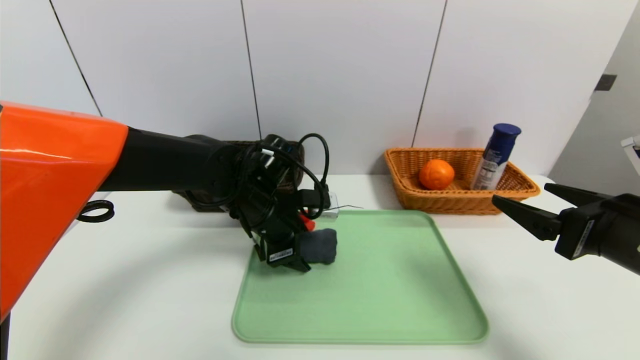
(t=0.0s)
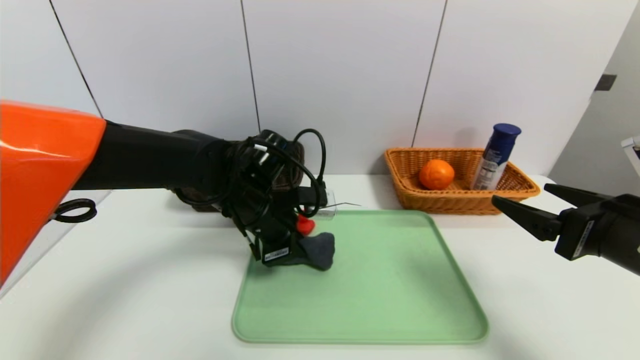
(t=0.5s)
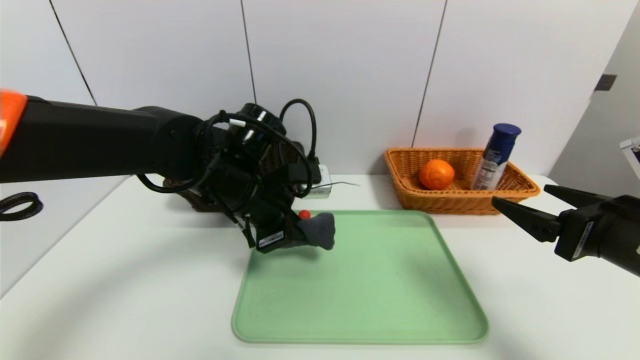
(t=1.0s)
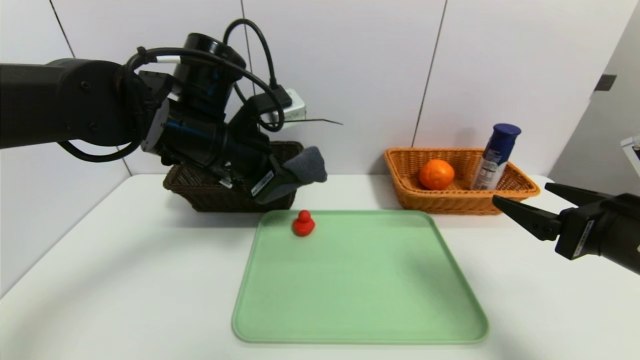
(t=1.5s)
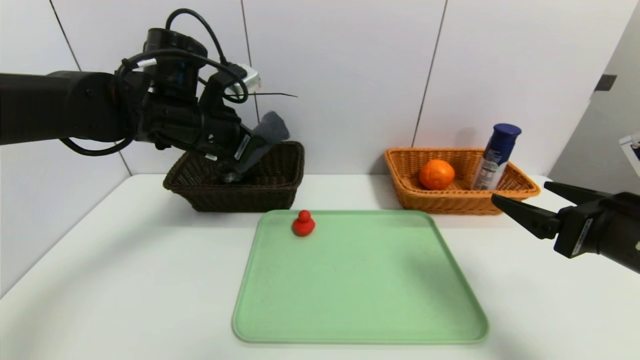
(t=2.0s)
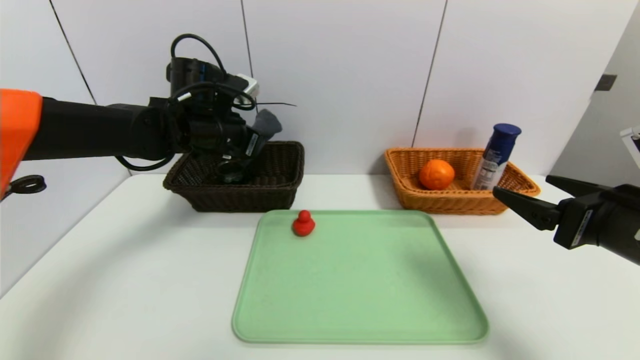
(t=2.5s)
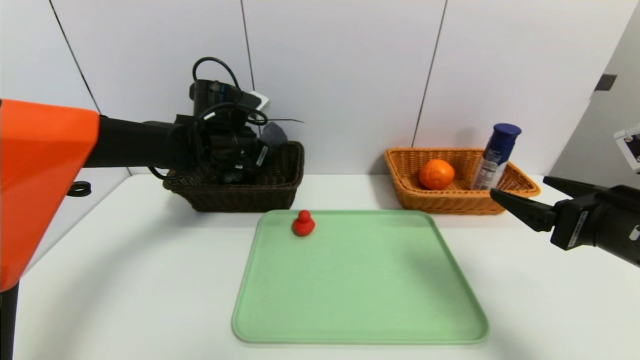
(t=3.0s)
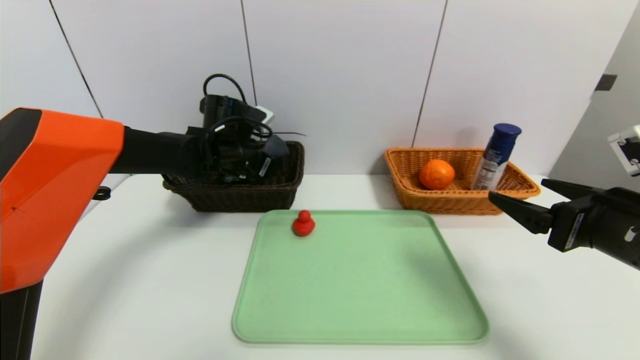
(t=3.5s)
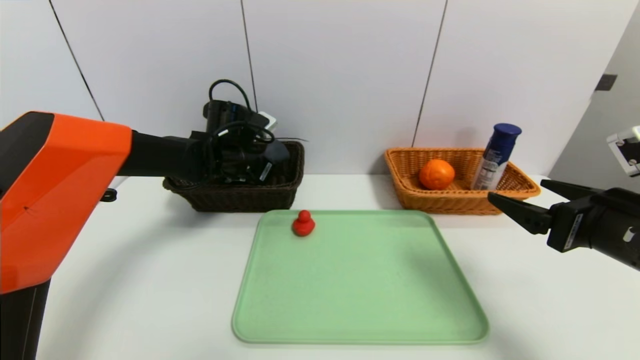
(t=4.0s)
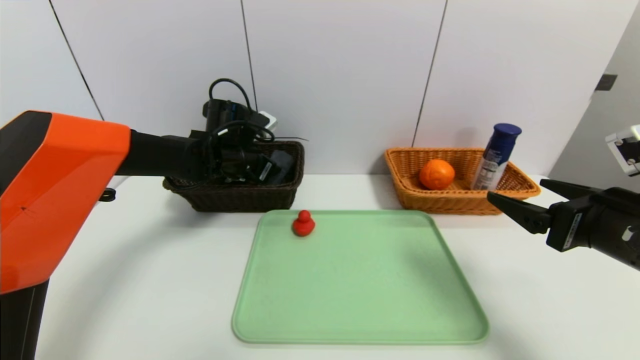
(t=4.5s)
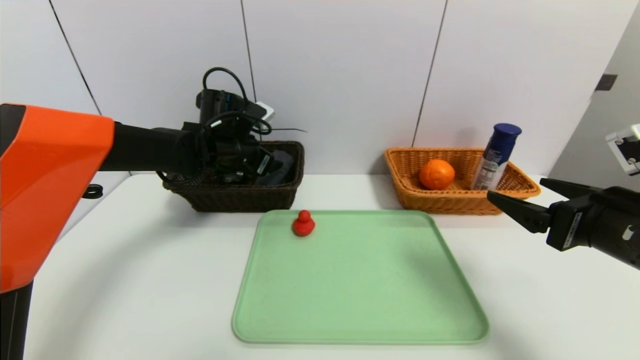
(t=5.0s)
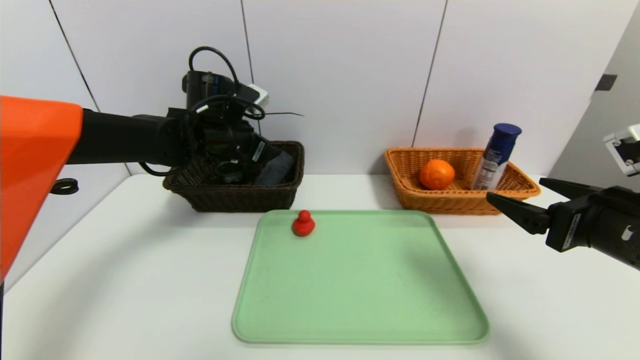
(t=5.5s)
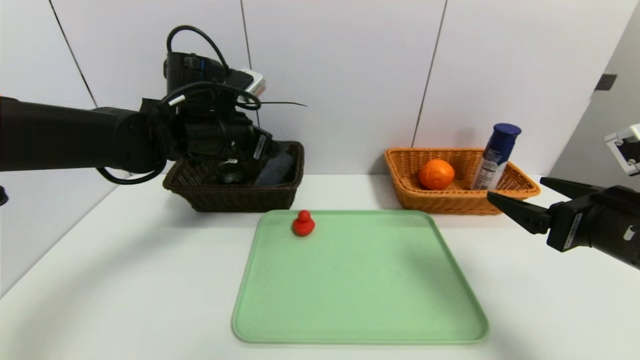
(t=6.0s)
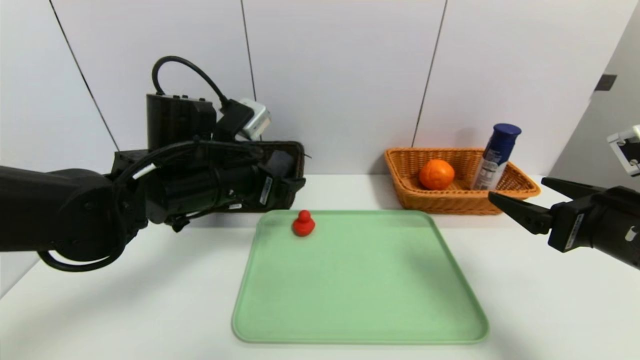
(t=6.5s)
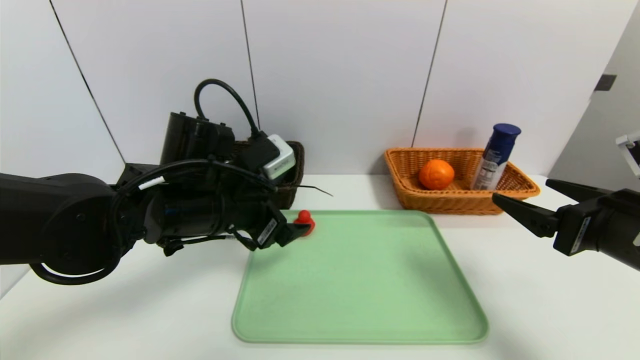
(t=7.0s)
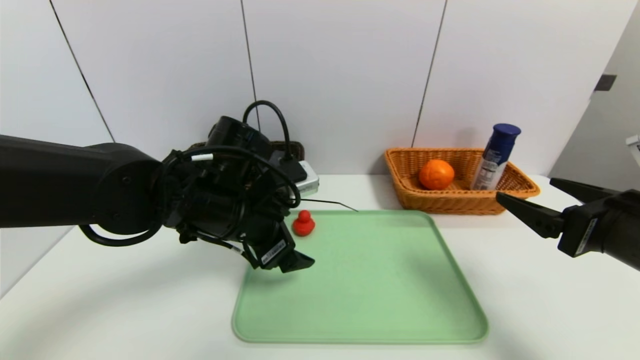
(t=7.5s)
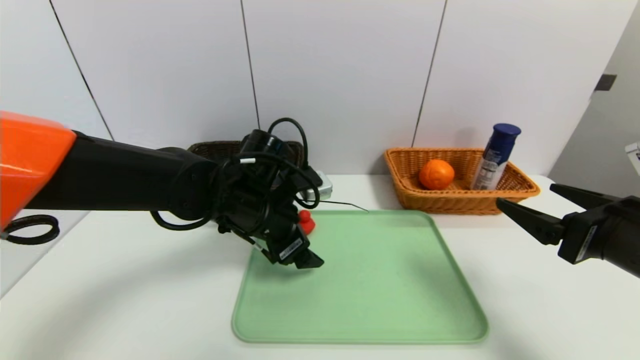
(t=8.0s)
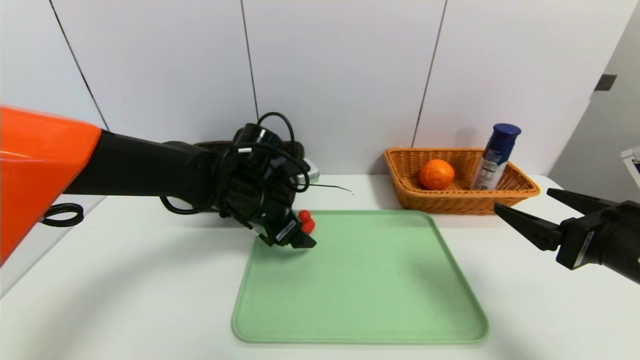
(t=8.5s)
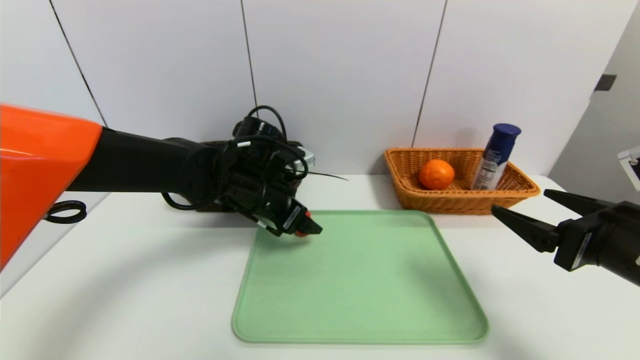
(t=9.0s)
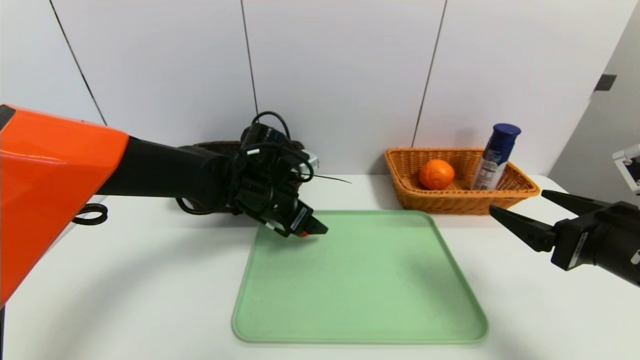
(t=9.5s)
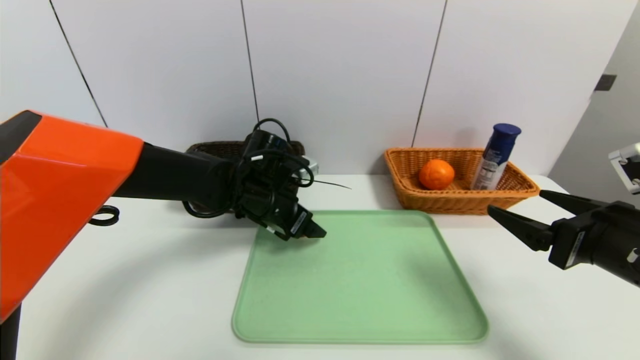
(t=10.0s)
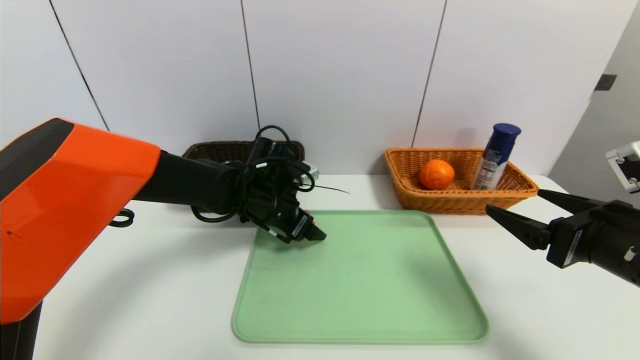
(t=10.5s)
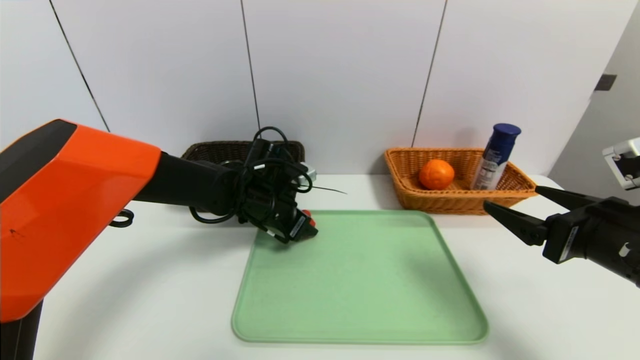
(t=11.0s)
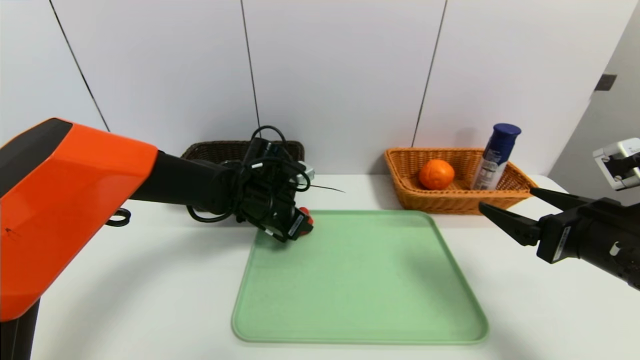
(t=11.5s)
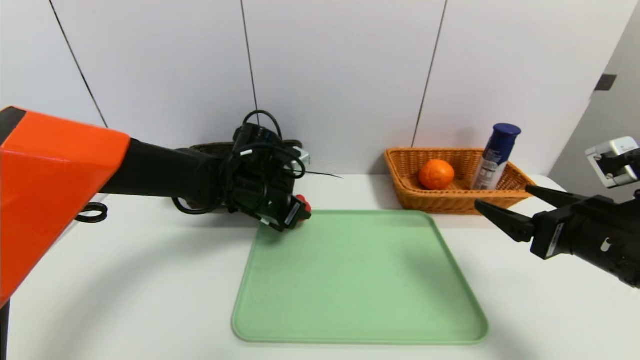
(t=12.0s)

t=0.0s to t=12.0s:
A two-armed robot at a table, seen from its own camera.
Task of the whole recording: place the food in the right basket with the right gripper, and place the non food items in the left basket with the left gripper.
Step, t=0.0s to t=5.0s: Grasp the grey towel and put it in the left basket.
t=0.0s to t=2.0s: The left gripper goes some 15 cm upward and to the left, and closes.
t=2.0s to t=4.0s: The left gripper moves downward and forward, approximately 15 cm.
t=4.0s to t=6.0s: The left gripper travels backward and upward by approximately 10 cm, and opens its fingers.
t=6.0s to t=8.0s: The left gripper travels downward, to the right and backward by some 10 cm.
t=8.0s to t=10.0s: The left gripper shifts roughly 5 cm forward.
t=10.0s to t=12.0s: The left gripper closes its fingers.

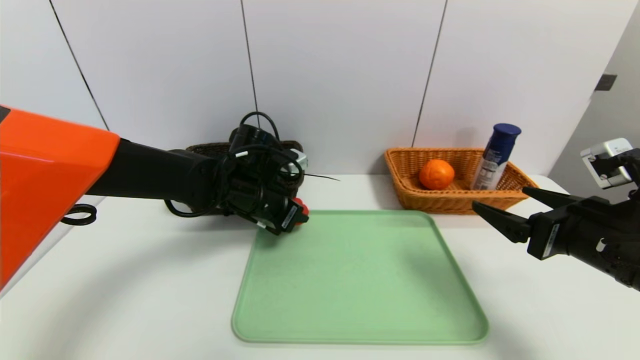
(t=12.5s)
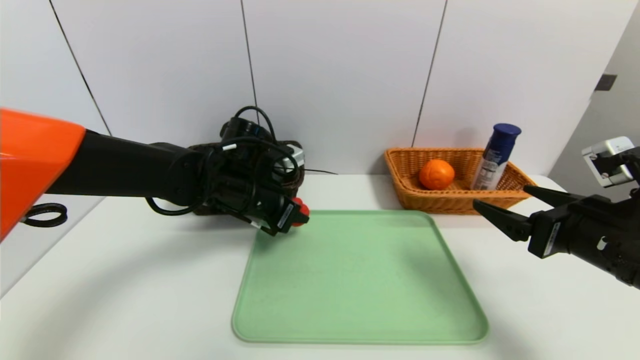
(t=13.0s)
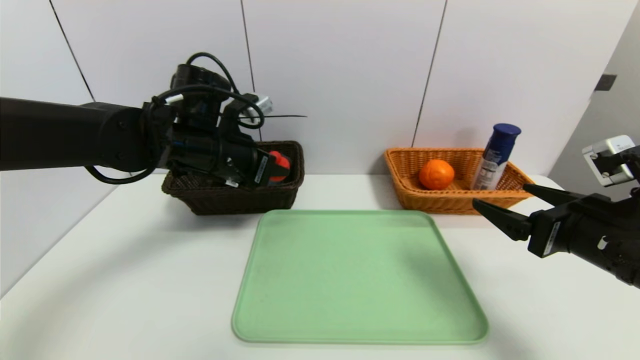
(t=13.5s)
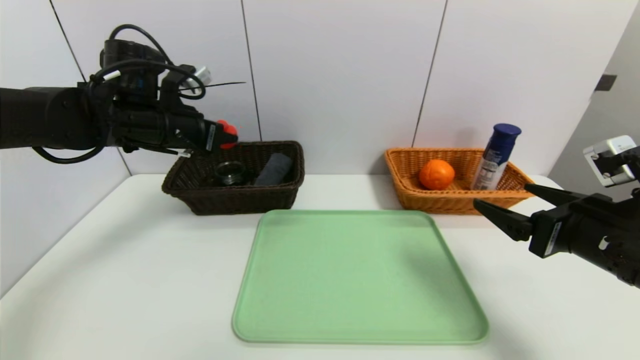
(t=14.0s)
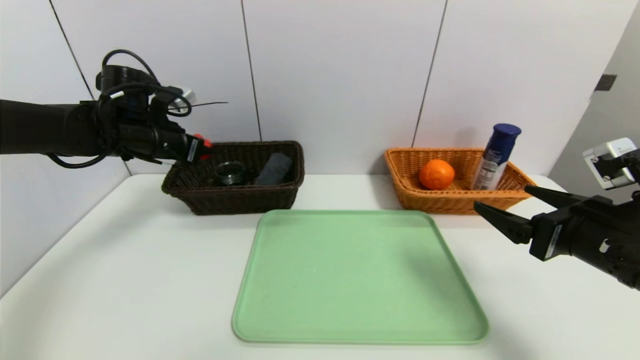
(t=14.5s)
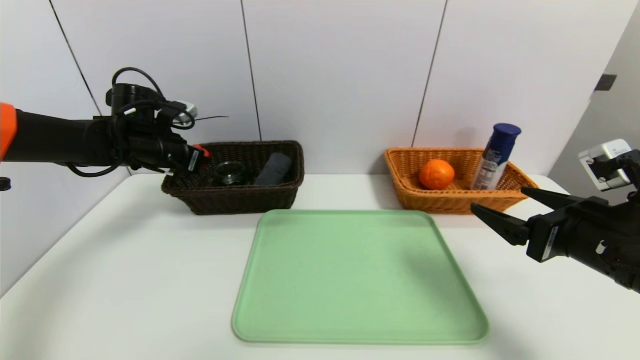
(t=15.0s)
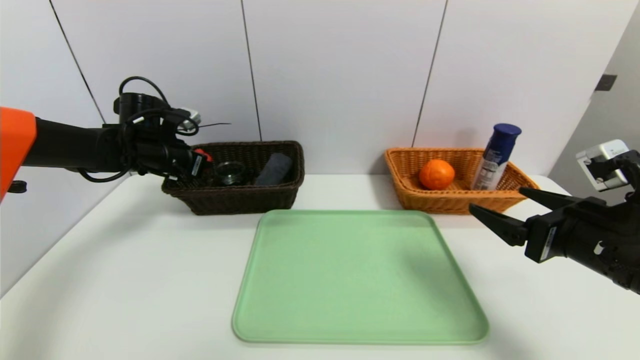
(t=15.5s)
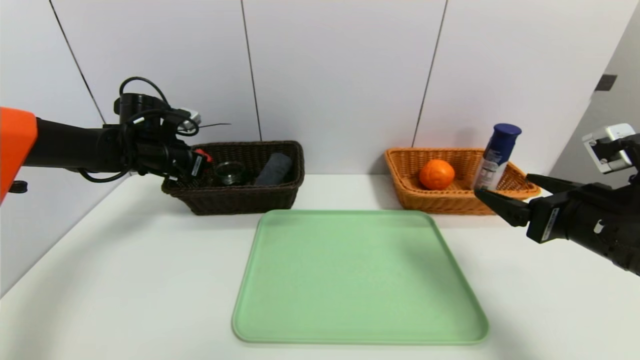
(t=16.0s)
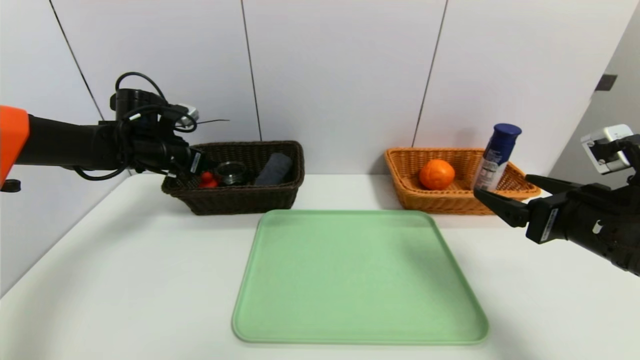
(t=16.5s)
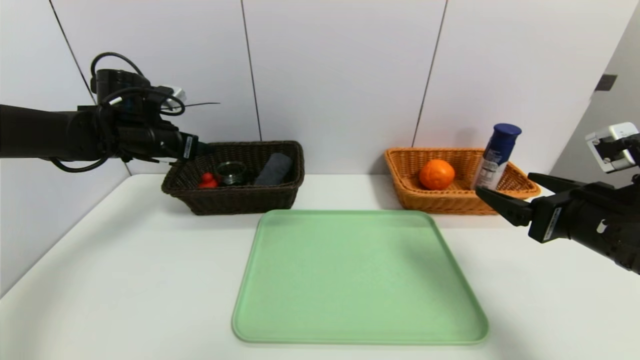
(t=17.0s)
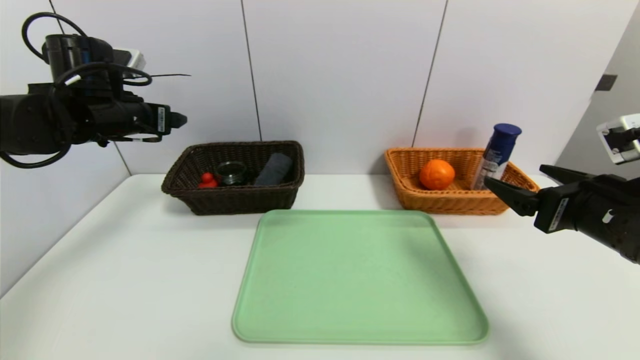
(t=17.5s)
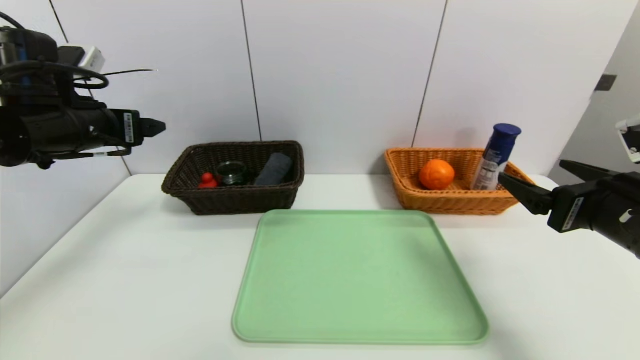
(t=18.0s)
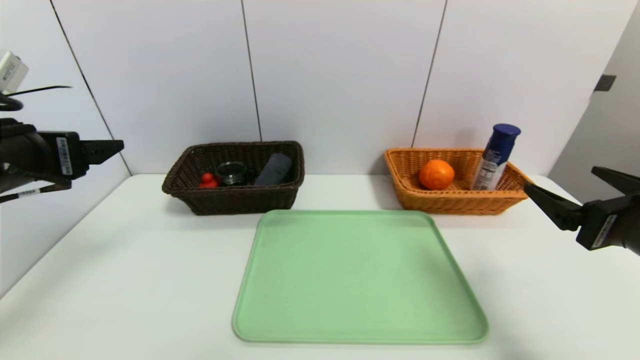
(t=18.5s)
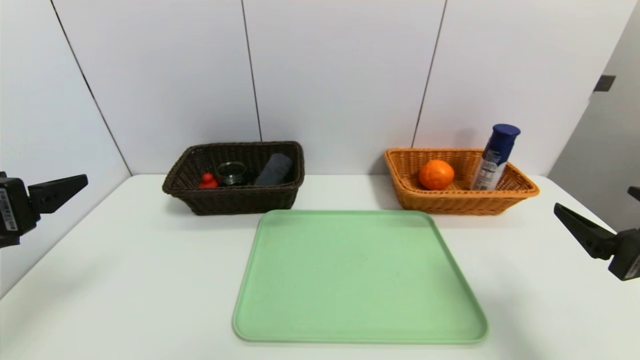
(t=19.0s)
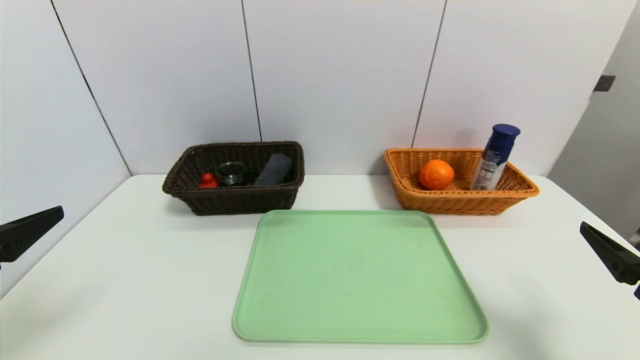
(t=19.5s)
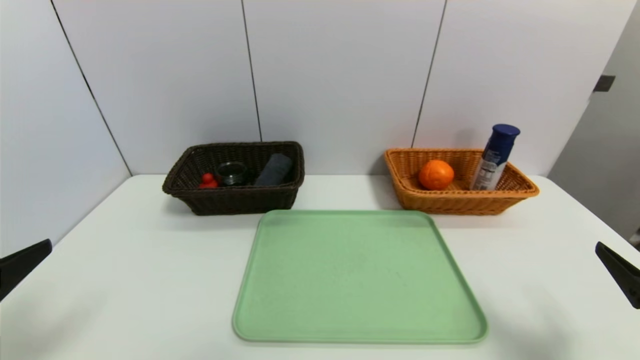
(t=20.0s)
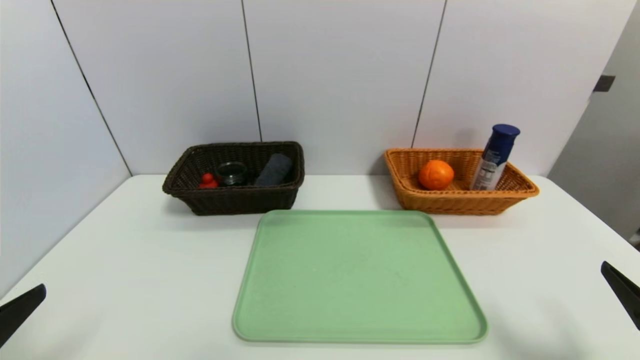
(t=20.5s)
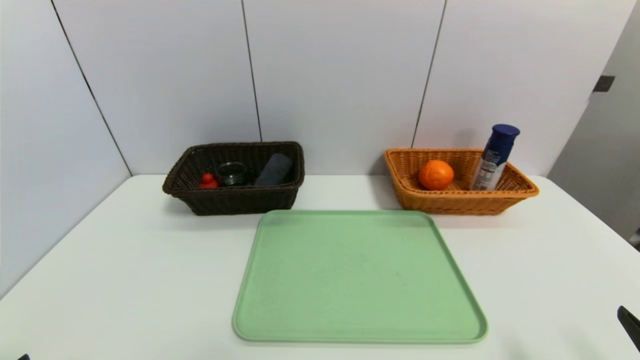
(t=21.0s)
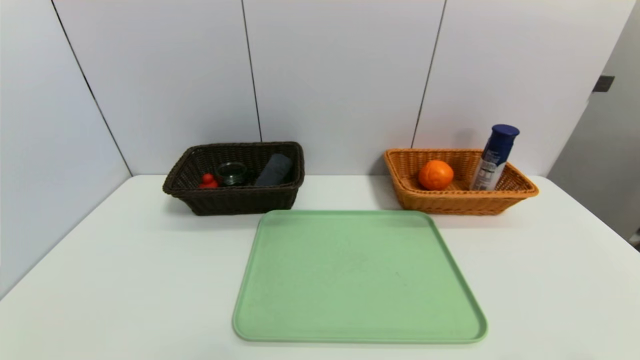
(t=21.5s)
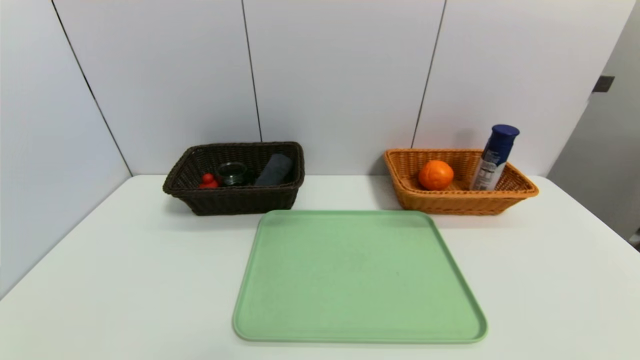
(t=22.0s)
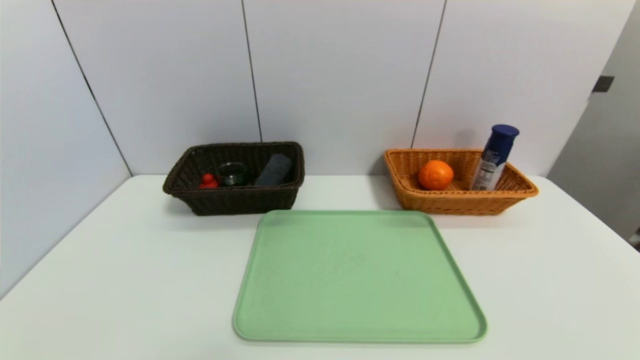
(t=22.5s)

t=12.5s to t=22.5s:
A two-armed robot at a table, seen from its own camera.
Task of the whole recording: place the food in the right basket with the right gripper, and place the non food items in the left basket with the left gripper.
Step, t=12.5s to t=16.5s: Grasp the red duck and put it in the left basket.
t=12.5s to t=14.5s: The left gripper travels to the left and upward by about 20 cm.
t=14.5s to t=16.5s: The left gripper opens up.
t=16.5s to t=18.5s: The left gripper moves backward, some 20 cm.
t=18.5s to t=20.5s: The right gripper moves backward and downward, approximately 10 cm. The left gripper shifts roughly 20 cm backward and downward.
t=20.5s to t=22.5s: The left gripper heads backward and downward, covering roughly 10 cm; the right gripper moves backward, roughly 10 cm.
